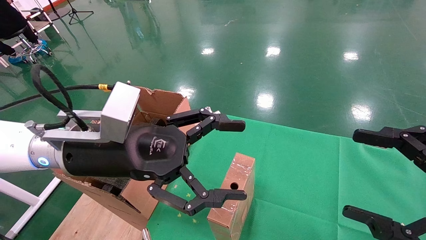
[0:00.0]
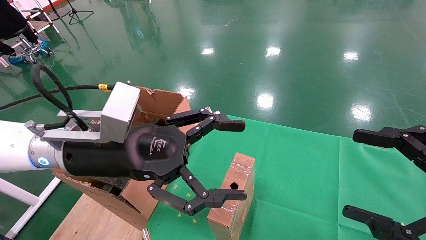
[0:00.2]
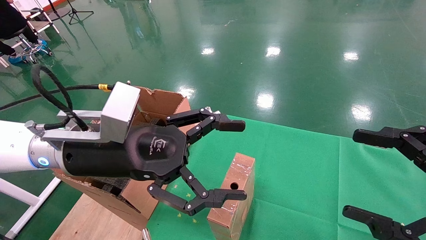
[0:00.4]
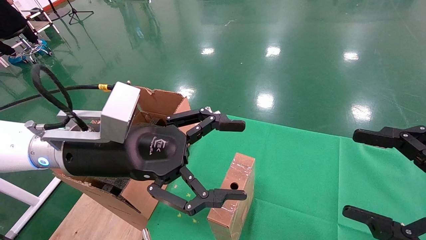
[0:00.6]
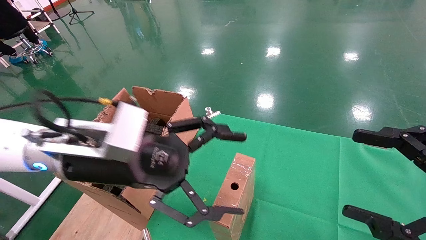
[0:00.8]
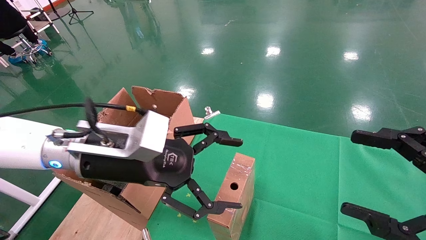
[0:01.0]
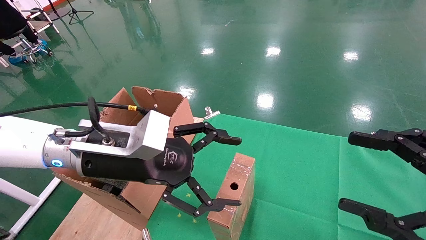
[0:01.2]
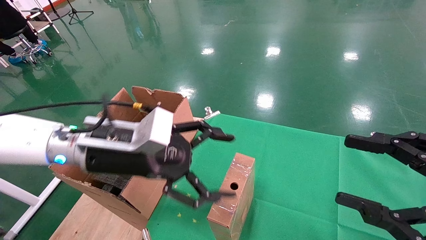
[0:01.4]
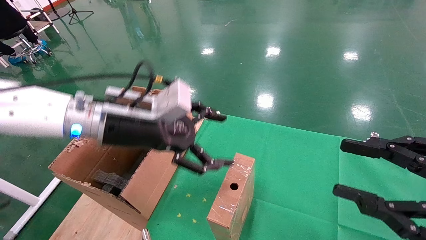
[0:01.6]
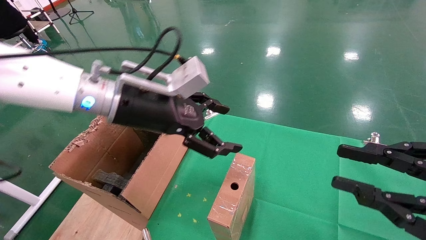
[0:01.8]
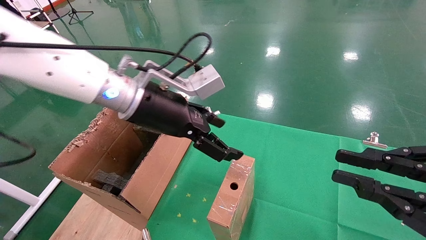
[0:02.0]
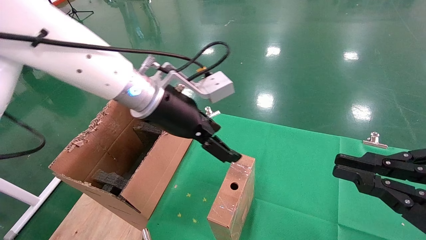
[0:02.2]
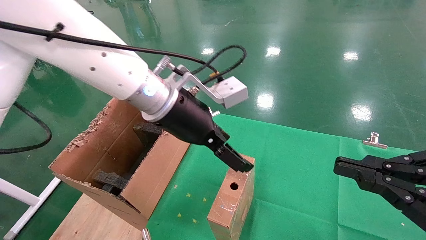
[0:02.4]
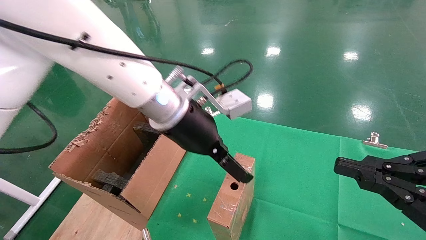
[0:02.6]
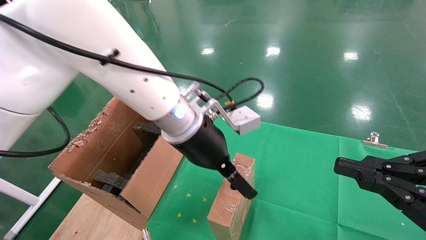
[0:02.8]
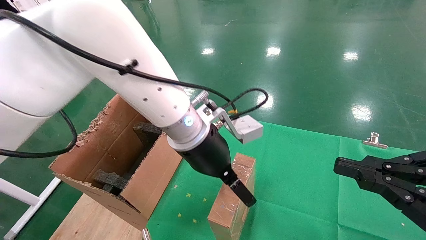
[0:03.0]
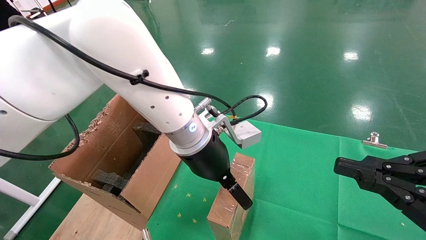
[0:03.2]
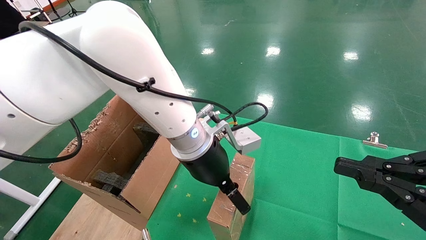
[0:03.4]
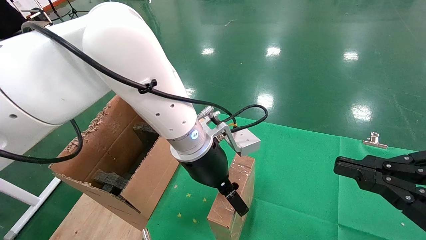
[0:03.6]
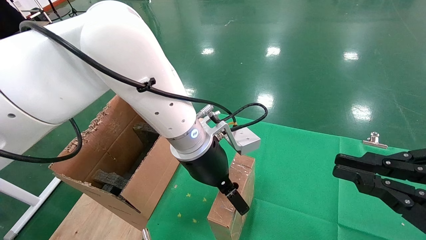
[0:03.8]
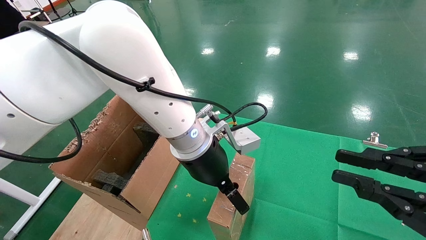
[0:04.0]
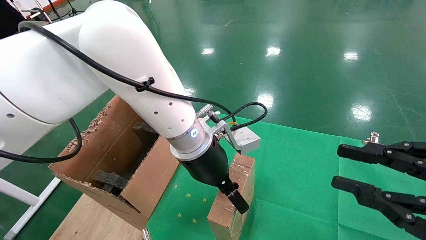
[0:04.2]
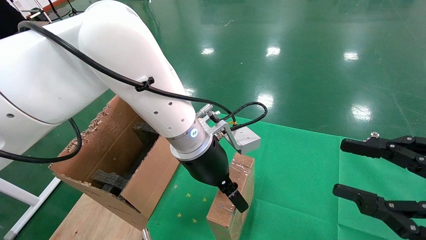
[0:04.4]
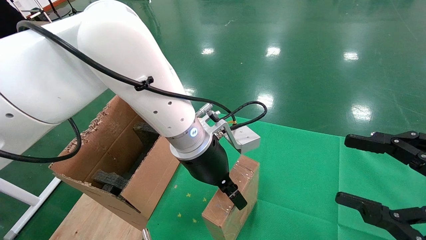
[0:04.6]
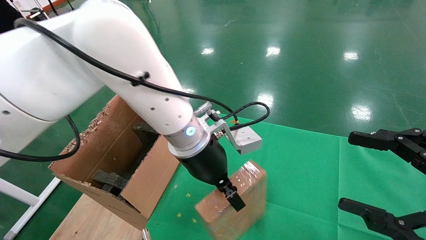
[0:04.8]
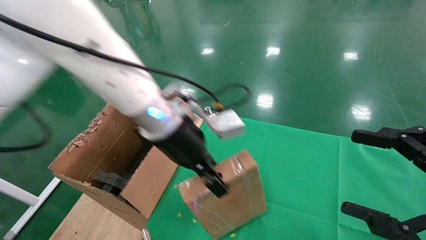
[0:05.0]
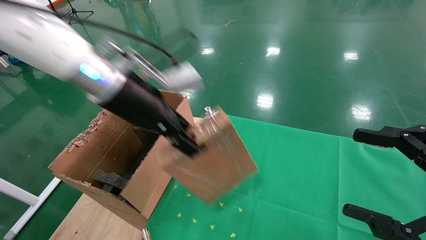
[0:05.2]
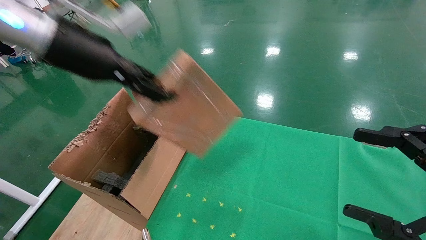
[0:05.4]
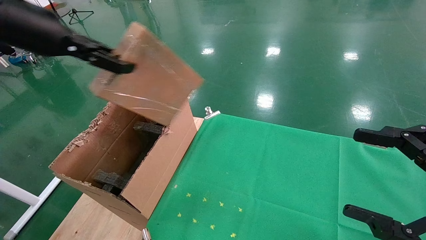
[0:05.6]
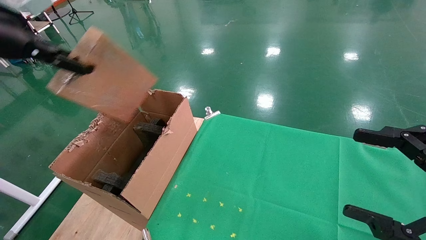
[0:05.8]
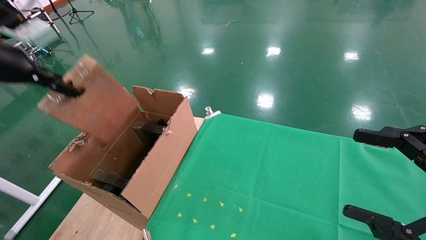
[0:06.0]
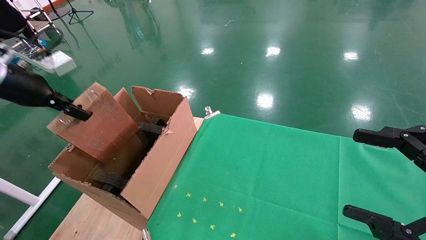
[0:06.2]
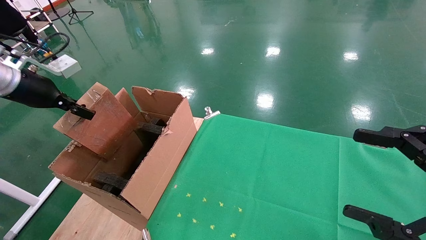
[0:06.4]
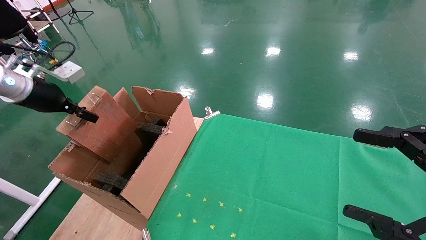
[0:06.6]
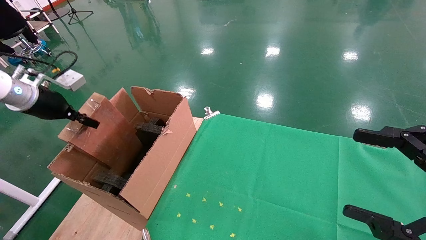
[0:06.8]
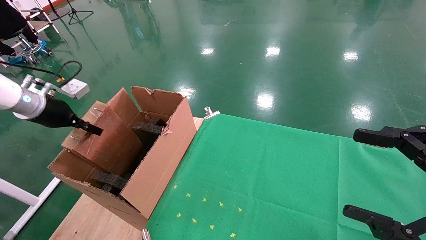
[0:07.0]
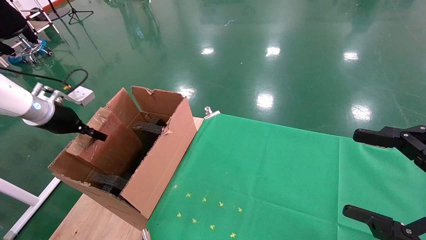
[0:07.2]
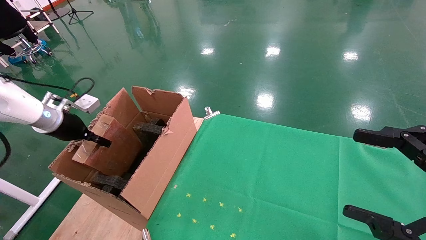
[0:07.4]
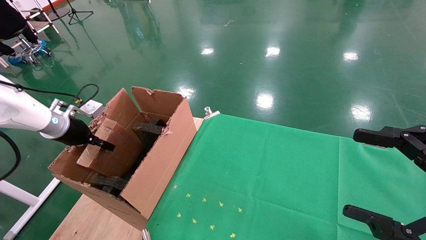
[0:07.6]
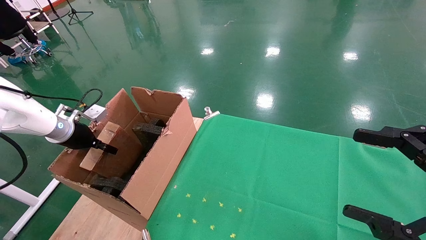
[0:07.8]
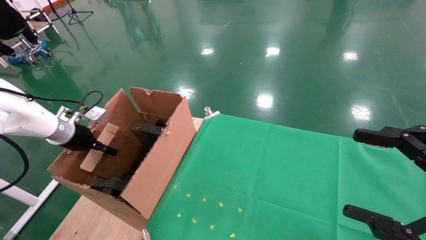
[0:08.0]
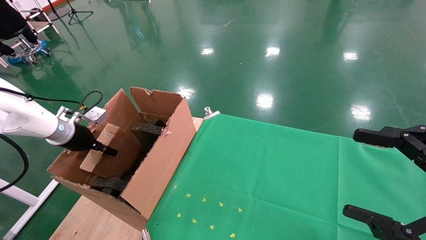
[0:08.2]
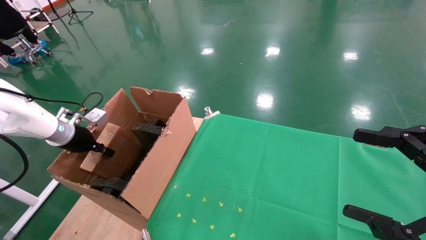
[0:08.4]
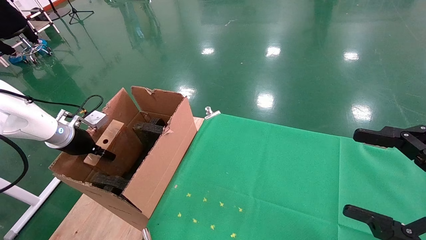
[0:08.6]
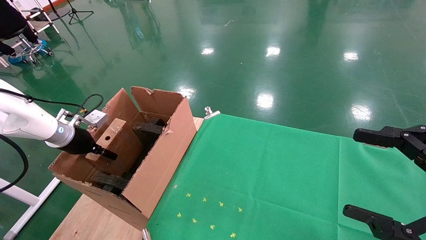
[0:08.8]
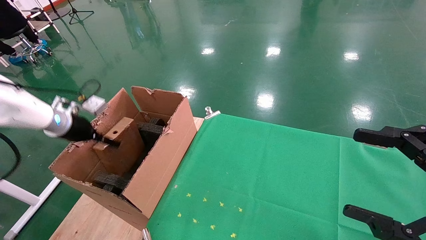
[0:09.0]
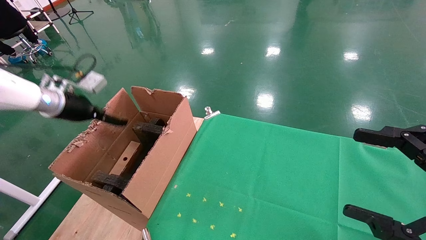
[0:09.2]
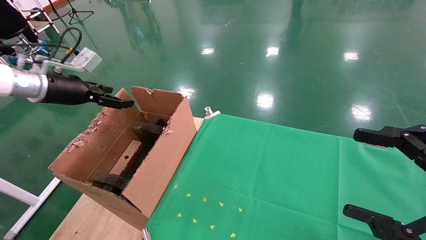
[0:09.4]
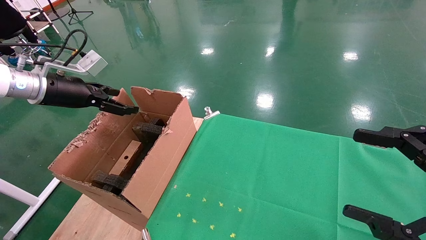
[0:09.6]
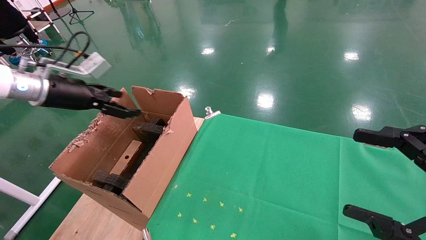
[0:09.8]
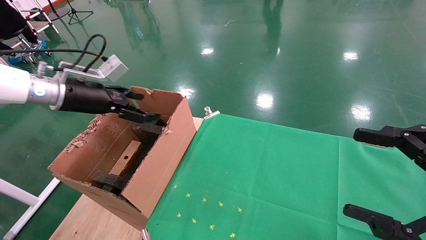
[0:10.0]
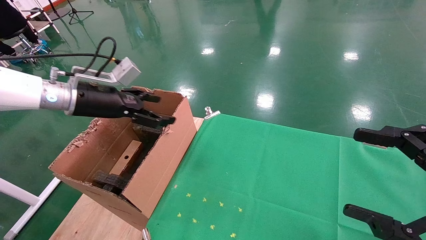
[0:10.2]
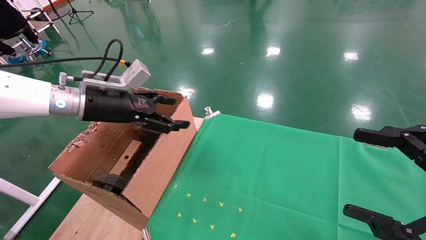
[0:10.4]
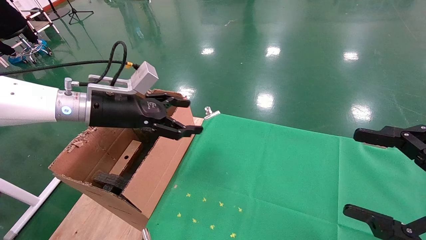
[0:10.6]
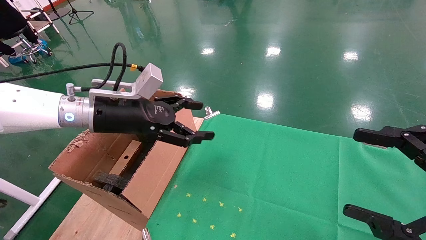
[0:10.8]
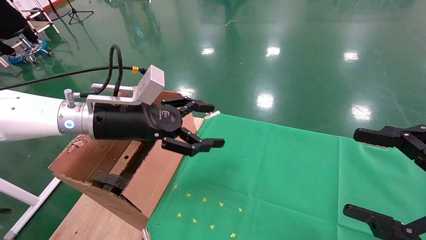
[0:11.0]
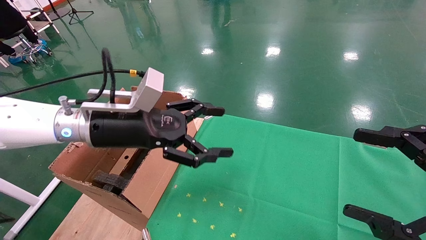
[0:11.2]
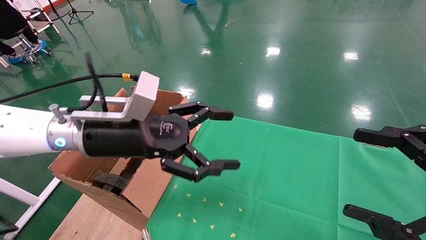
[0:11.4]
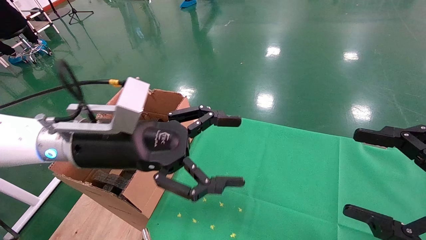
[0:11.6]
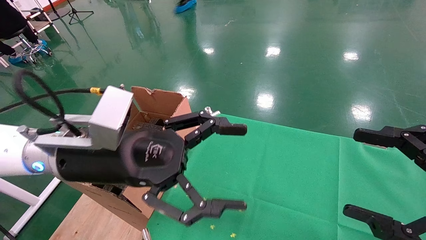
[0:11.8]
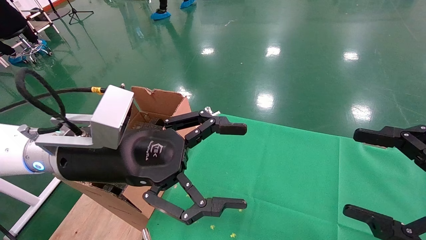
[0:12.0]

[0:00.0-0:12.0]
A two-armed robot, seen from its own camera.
Task of the whole recording: using a robotic arm to pick up a cardboard box and palace it the carton.
Step, 0:01.0 to 0:04.8: Pick up the mouse and the power cord paper box.
Step, 0:05.0 to 0:09.0: Place the mouse and the power cord paper box into the container.
0:00.0 to 0:01.6: The right gripper closes its fingers. Meanwhile the left gripper is displaced forward by approximately 5 cm.
0:01.6 to 0:03.0: The left gripper goes roughly 15 cm to the right; the right gripper closes its fingers.
0:03.0 to 0:04.4: The right gripper opens up.
0:04.4 to 0:06.0: The right gripper opens its fingers. Meanwhile the left gripper is displaced to the left by some 40 cm, and closes.
0:06.0 to 0:07.6: The left gripper travels downward and forward by about 20 cm.
0:07.6 to 0:09.0: The left gripper opens.
0:09.0 to 0:10.4: The left gripper travels to the right and upward by roughly 15 cm, and opens up.
0:10.4 to 0:12.0: The left gripper heads backward and to the right, covering approximately 15 cm.

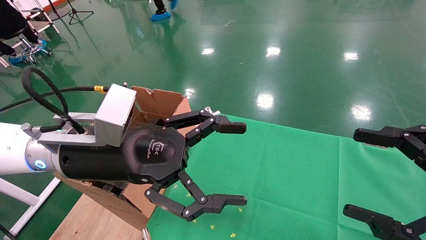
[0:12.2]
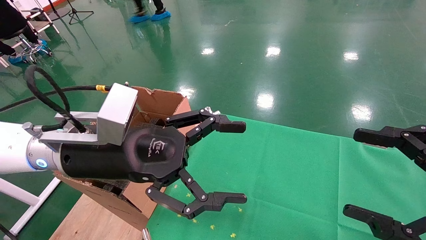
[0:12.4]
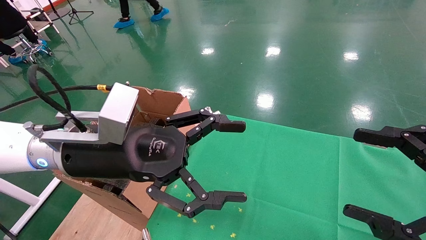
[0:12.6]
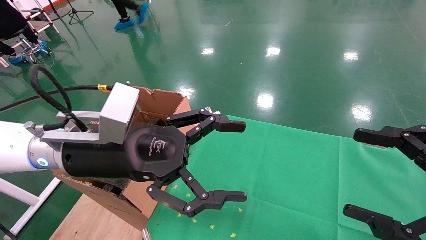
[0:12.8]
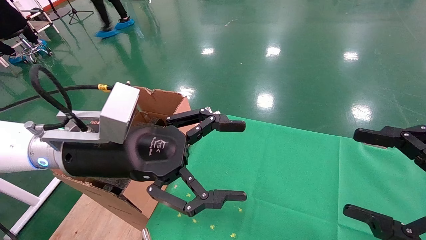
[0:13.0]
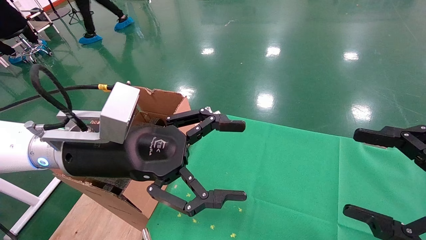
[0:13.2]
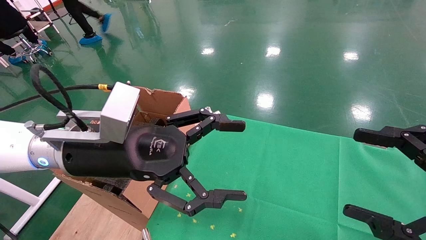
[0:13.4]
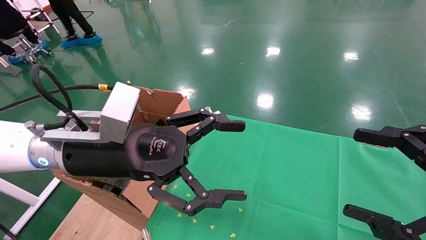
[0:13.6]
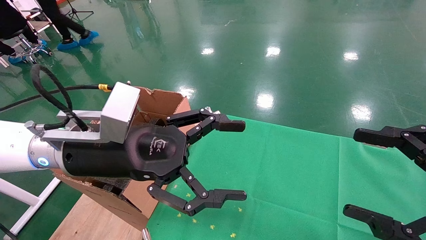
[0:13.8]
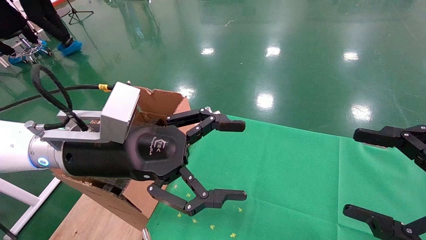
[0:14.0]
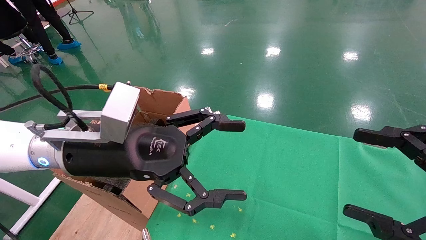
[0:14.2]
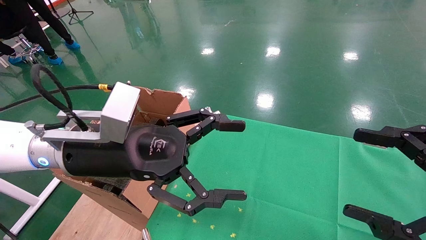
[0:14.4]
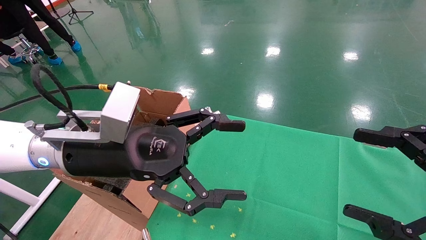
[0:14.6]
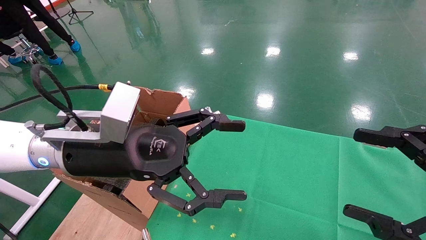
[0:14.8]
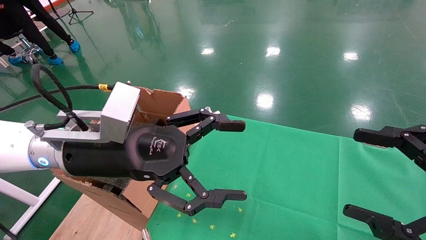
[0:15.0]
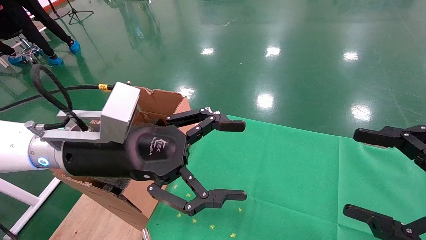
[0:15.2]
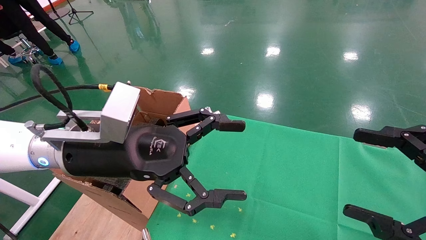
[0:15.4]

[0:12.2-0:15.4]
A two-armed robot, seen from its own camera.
Task of the whole recording: using a robotic arm to pick up a cardboard box and palace it the carton.
0:12.2 to 0:15.4: Both grippers stay about where they are.
